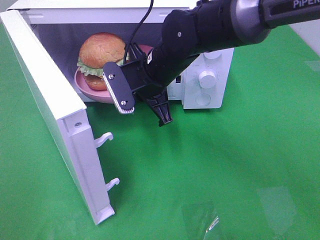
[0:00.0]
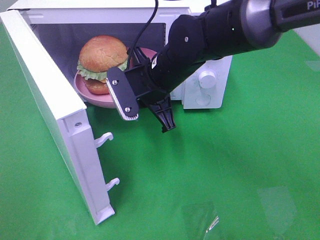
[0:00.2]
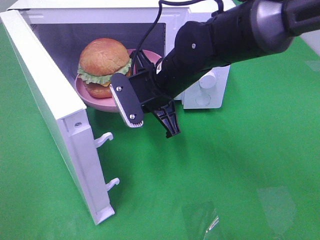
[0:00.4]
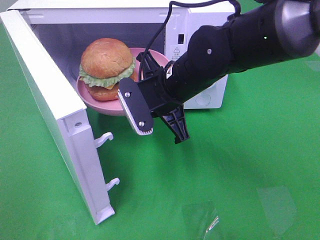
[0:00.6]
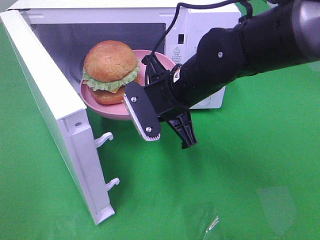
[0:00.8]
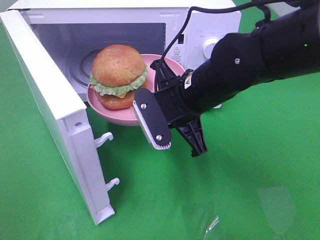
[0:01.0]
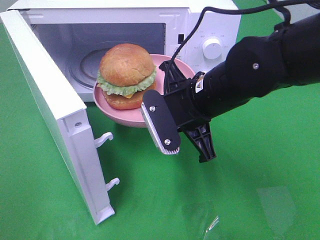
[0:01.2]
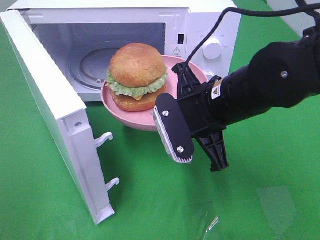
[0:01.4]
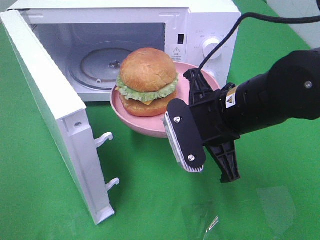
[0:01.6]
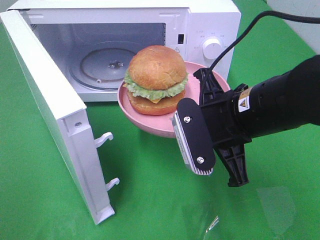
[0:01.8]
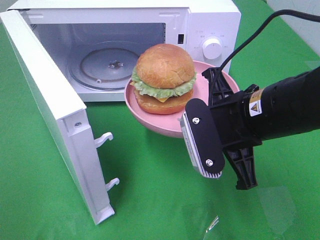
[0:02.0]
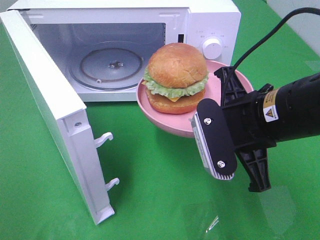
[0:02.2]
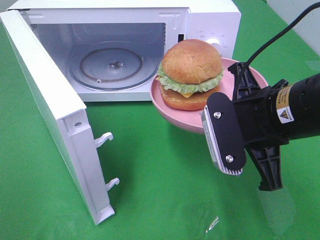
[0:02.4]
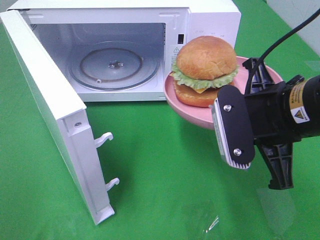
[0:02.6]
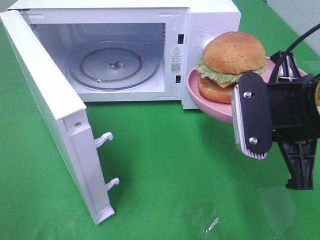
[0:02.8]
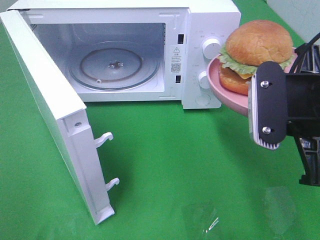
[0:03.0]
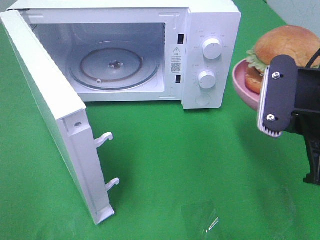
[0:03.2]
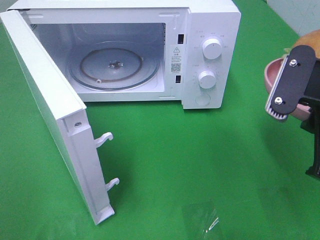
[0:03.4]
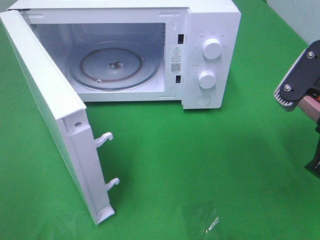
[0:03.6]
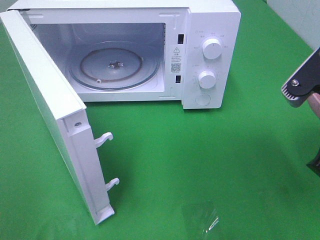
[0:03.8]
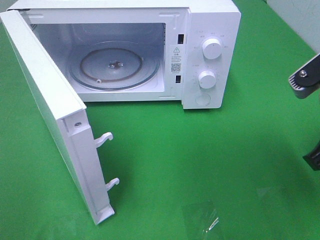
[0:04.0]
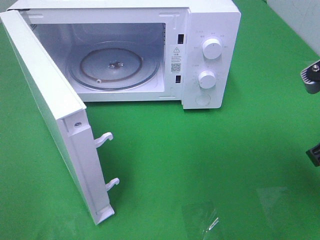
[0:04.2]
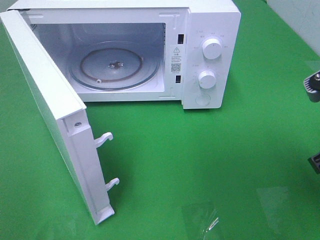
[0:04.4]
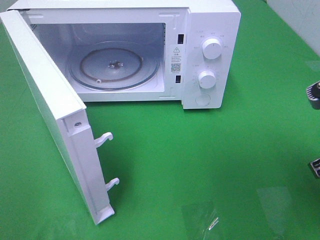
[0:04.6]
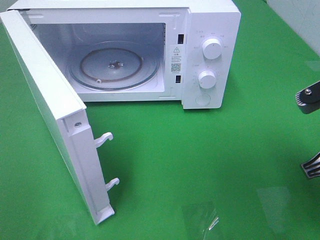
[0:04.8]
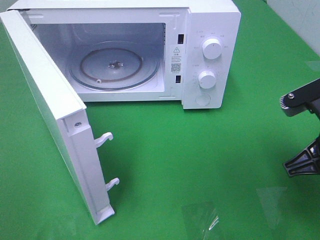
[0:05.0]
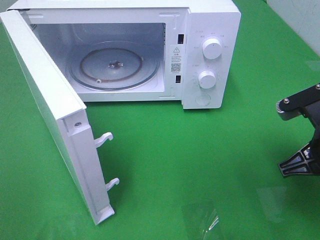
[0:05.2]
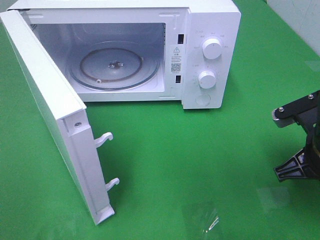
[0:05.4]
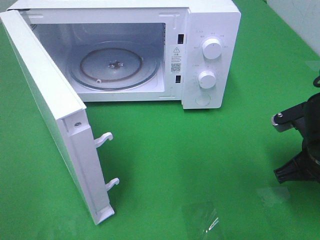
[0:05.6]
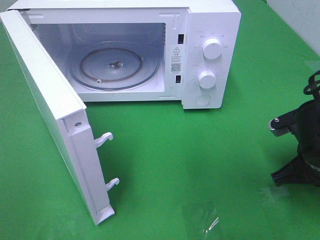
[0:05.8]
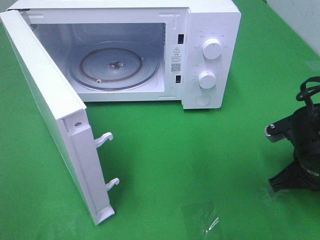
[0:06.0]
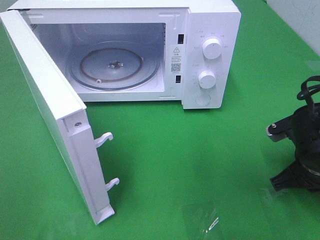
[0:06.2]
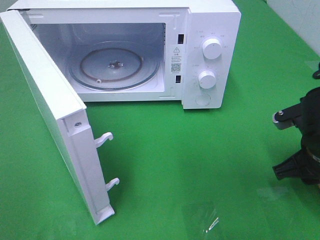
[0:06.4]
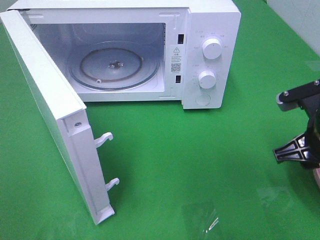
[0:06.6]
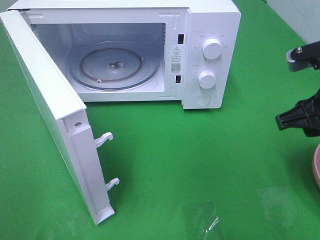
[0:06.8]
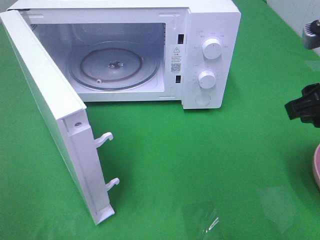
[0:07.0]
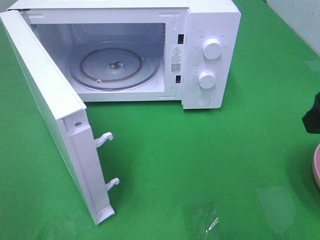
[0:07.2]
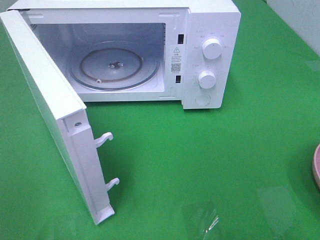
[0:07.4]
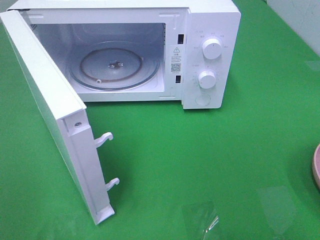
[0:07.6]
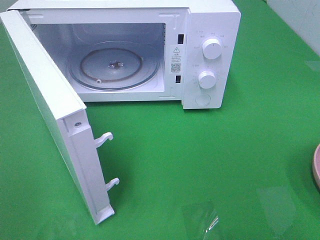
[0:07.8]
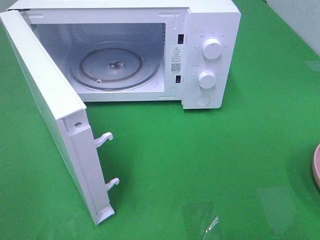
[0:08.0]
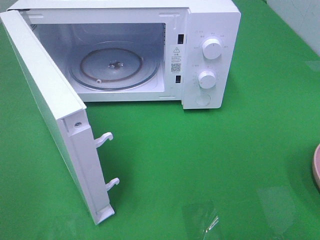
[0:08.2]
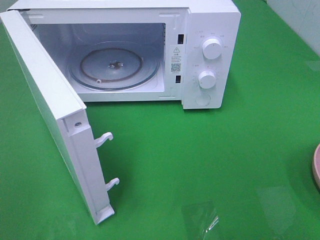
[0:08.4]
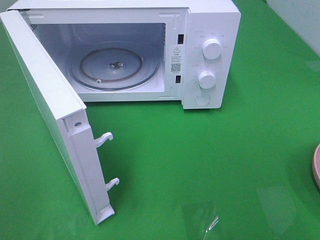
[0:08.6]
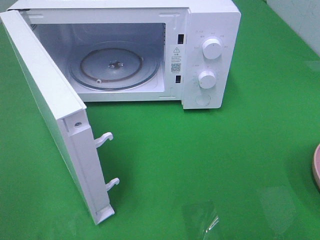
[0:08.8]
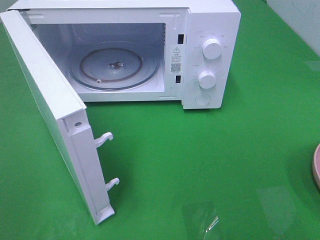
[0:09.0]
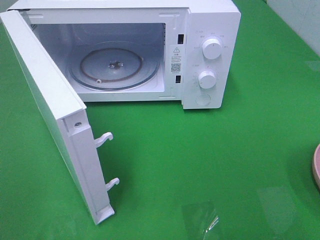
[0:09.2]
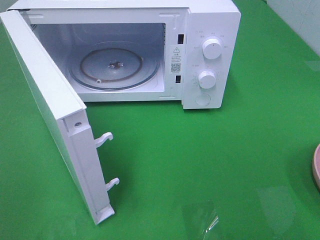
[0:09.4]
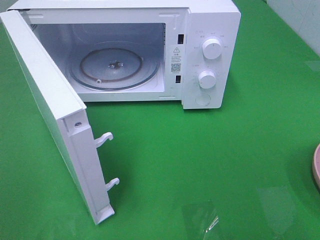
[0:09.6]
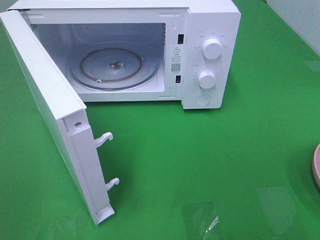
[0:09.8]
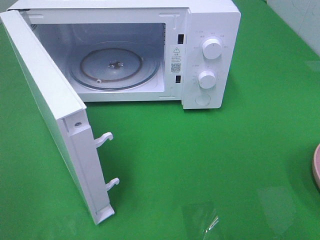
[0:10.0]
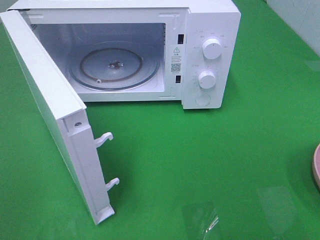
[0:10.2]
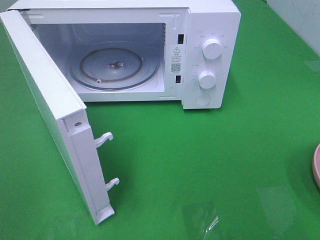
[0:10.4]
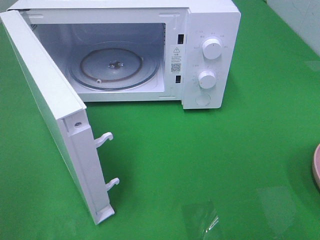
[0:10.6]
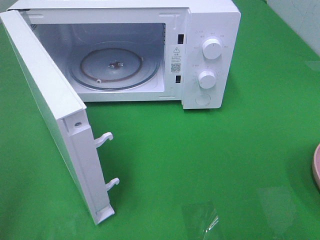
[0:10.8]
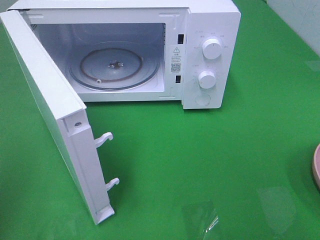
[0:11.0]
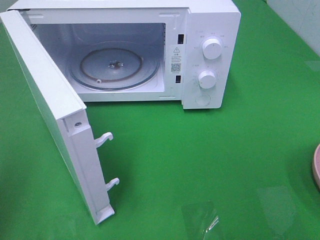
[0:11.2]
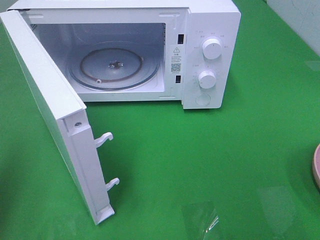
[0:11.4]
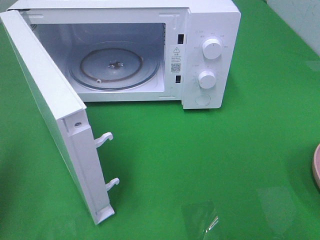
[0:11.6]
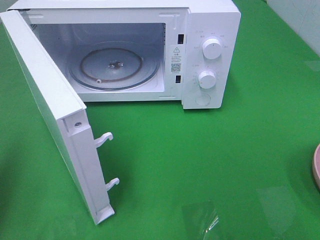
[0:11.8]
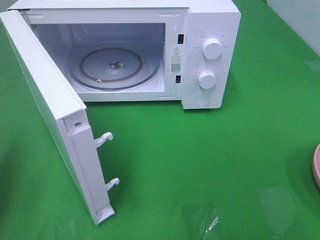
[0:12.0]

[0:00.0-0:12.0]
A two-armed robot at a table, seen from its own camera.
Task of the whole recording: Heat the burger.
Step, 0:00.0 to 0:06.2: Right hand: place the plate on the table.
0:00.0 to 0:01.6: The right gripper is displaced backward and to the right by some 15 cm.
0:01.6 to 0:03.0: The right gripper moves to the right, upward and backward, approximately 10 cm.
0:03.0 to 0:04.4: The right gripper ends up some 5 cm from where it was.
0:04.4 to 0:06.0: The right gripper moves downward and forward, some 15 cm.
0:06.0 to 0:07.6: The right gripper moves upward and backward, approximately 25 cm, and opens up.
0:09.0 to 0:10.4: Neither gripper changes place.
0:10.4 to 0:12.0: The left gripper travels forward and downward by roughly 20 cm, and closes.

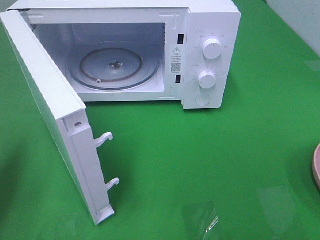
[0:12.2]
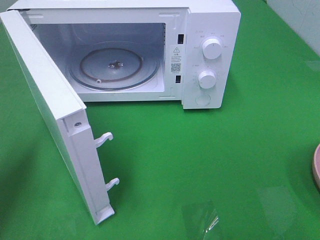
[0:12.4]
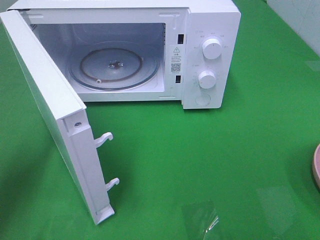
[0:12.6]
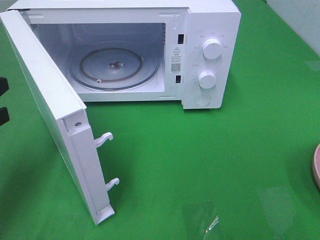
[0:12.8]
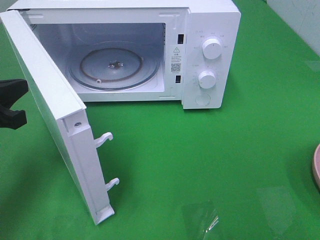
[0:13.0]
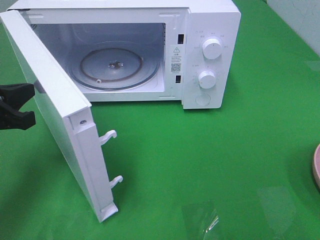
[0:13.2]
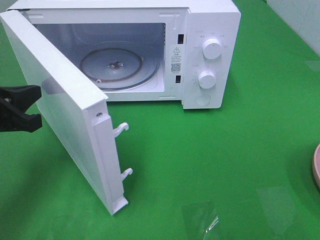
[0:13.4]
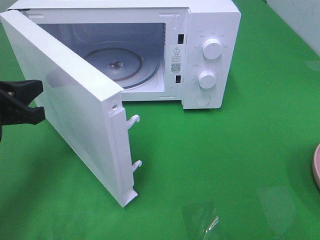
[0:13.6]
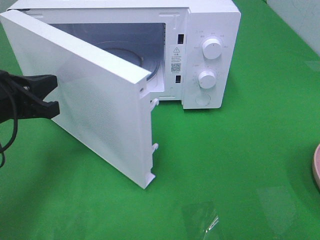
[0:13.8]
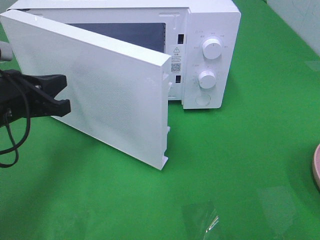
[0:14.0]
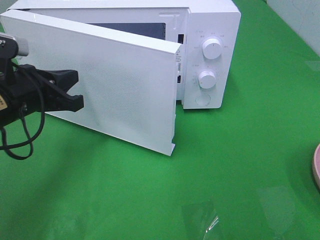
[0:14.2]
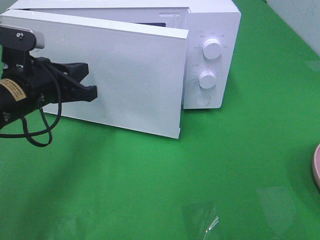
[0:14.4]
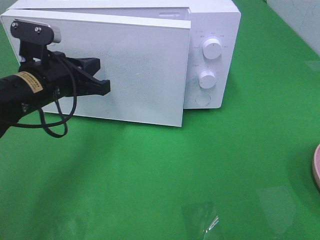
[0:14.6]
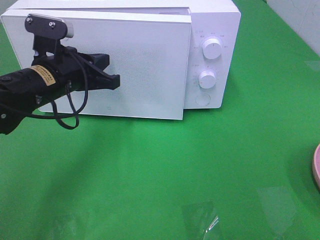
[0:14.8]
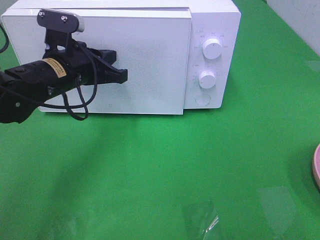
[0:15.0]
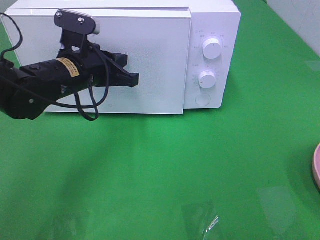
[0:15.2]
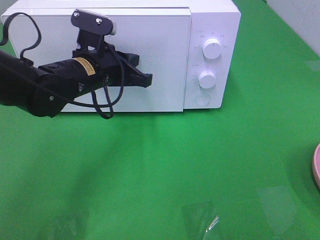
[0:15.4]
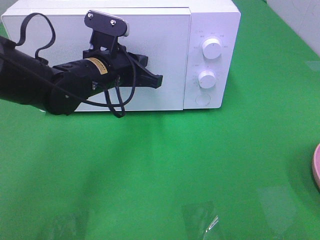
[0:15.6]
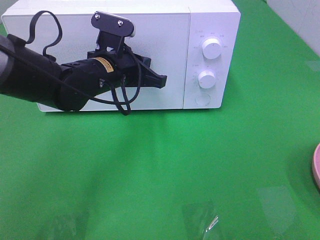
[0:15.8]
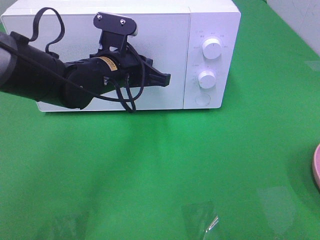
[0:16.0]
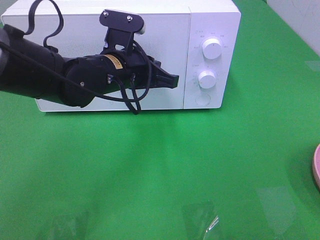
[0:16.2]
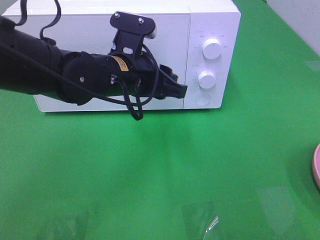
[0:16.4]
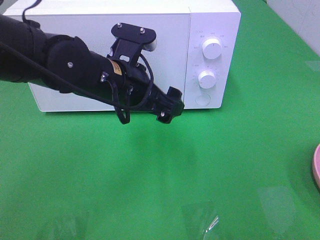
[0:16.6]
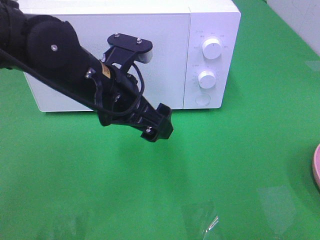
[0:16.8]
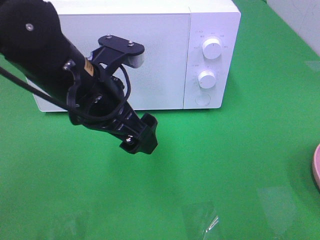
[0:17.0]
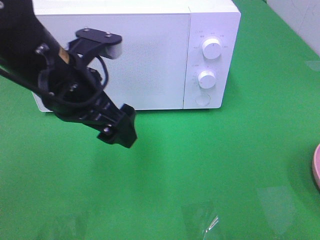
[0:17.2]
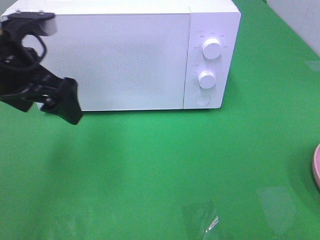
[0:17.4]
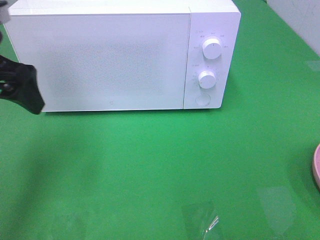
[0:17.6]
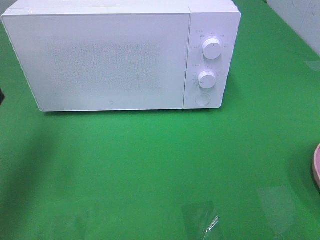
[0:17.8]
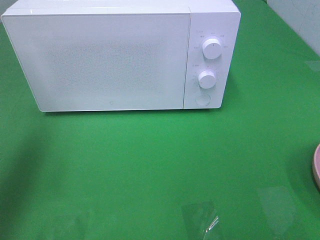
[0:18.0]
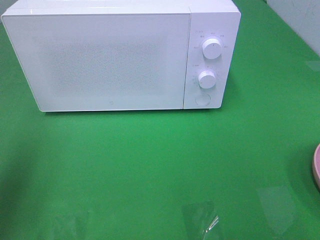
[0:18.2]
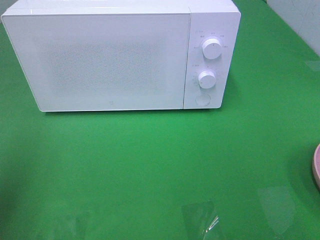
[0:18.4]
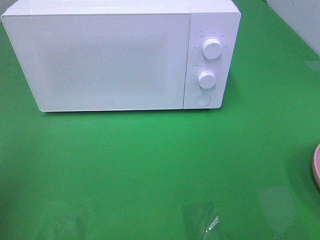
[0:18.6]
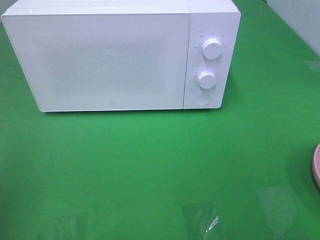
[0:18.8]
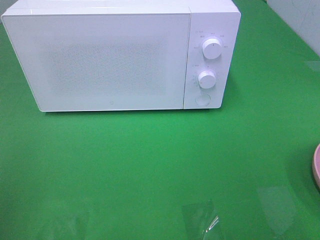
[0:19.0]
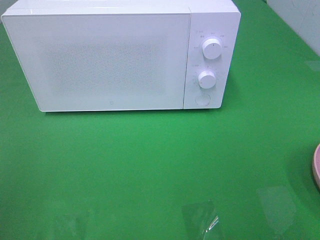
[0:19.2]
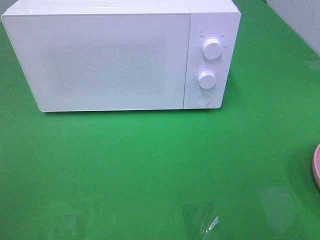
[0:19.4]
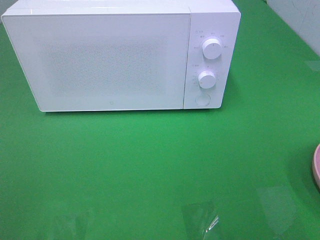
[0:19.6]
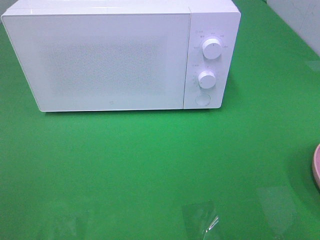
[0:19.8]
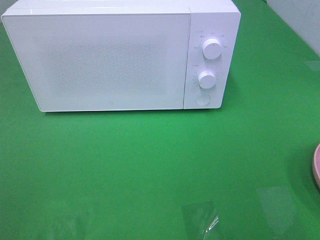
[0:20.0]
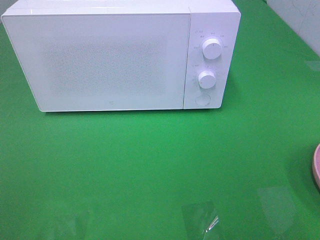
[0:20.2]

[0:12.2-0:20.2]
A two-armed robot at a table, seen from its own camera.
Task of the whole recording: Heat the burger.
Step, 0:12.2 to 0:16.0: Left hand: close the microwave door.
0:12.2 to 0:13.8: The left gripper travels to the right and forward by some 10 cm.
0:13.8 to 0:15.4: The left gripper shifts approximately 15 cm to the right and forward.
0:15.4 to 0:17.0: The left gripper travels backward and upward by approximately 10 cm, and opens.
0:17.0 to 0:18.6: The left gripper is displaced to the left and backward by approximately 25 cm.

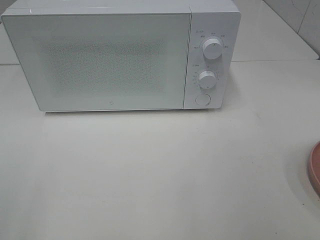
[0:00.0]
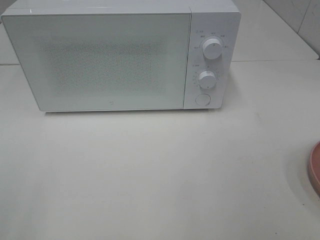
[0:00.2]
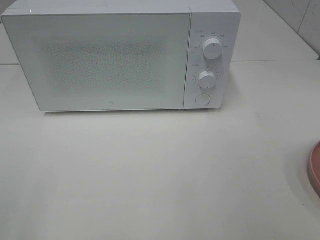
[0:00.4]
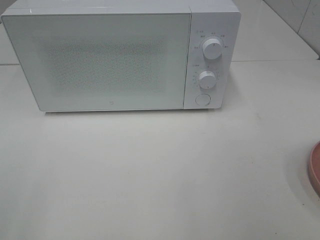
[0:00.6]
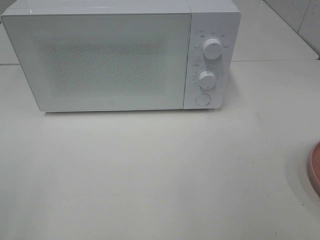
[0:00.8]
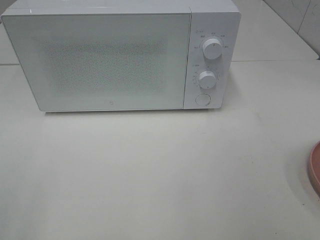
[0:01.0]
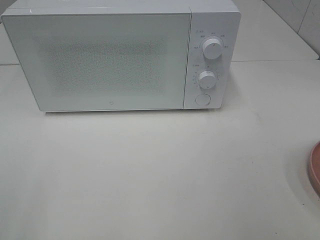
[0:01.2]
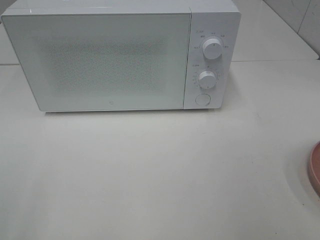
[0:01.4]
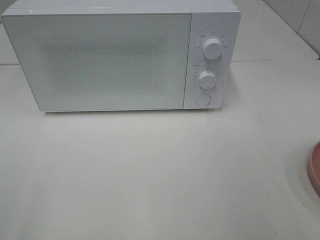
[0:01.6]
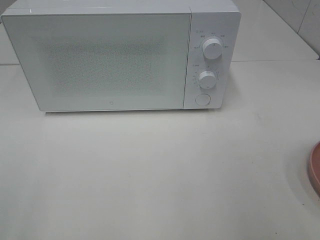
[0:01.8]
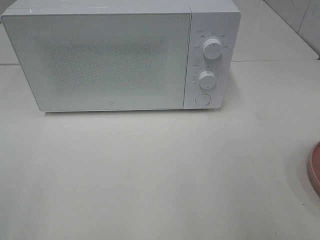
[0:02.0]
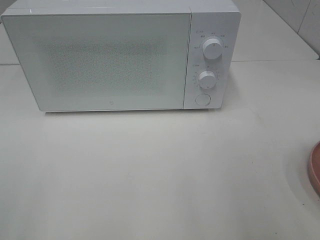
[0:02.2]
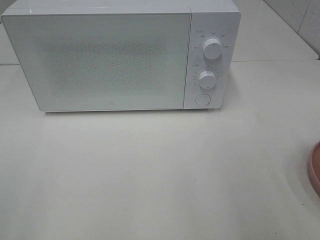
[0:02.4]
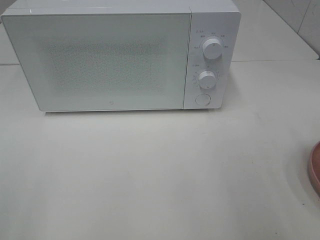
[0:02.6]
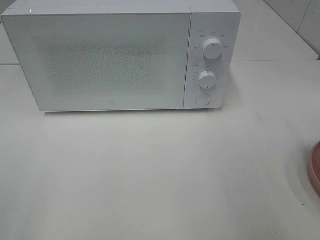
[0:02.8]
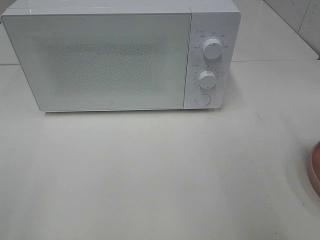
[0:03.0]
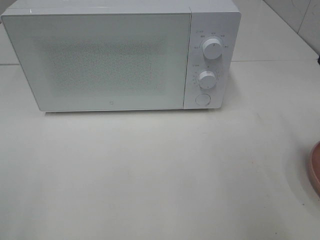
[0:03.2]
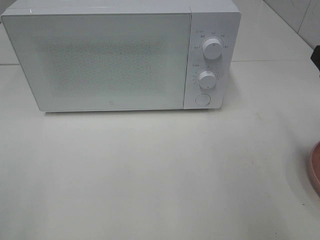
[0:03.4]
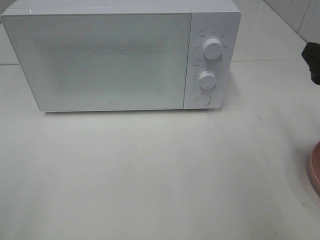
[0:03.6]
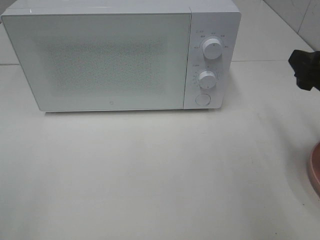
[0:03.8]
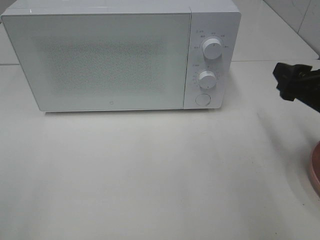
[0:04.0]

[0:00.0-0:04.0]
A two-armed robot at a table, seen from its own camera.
Task of the whole recording: Heat the burger.
0:02.6 to 0:04.0: The right gripper moves forward and downward, roughly 10 cm.
